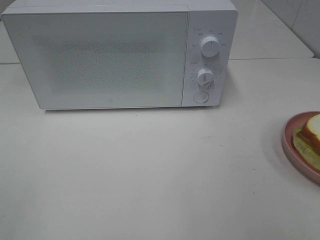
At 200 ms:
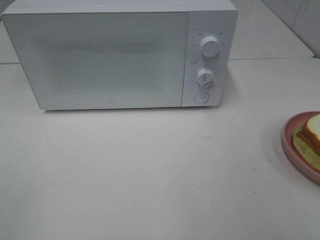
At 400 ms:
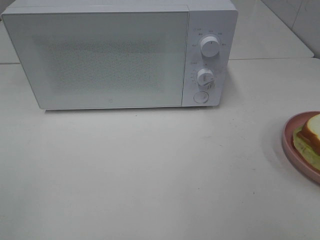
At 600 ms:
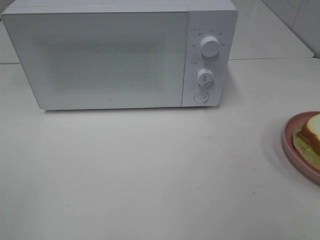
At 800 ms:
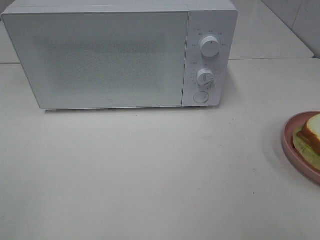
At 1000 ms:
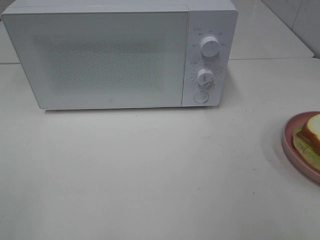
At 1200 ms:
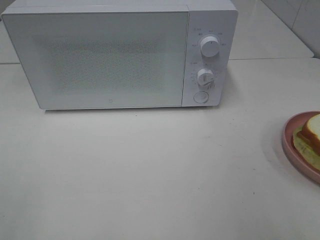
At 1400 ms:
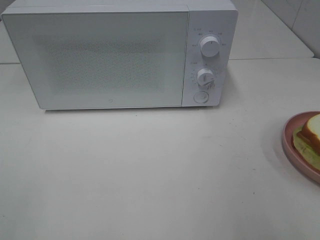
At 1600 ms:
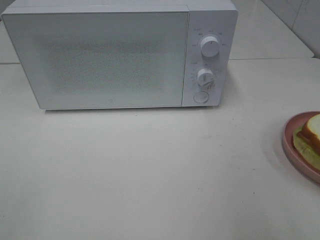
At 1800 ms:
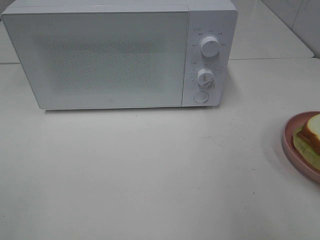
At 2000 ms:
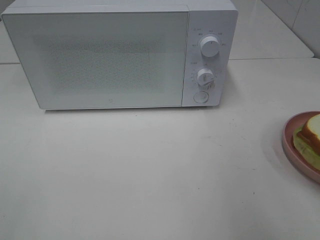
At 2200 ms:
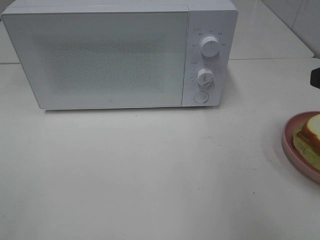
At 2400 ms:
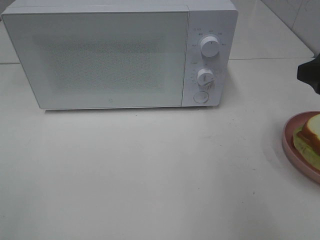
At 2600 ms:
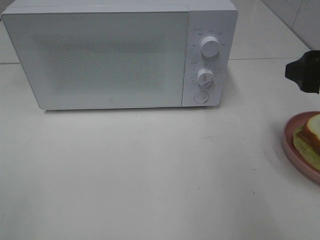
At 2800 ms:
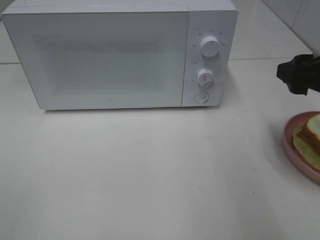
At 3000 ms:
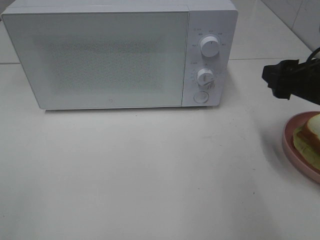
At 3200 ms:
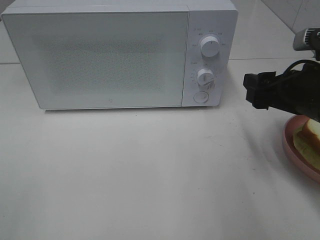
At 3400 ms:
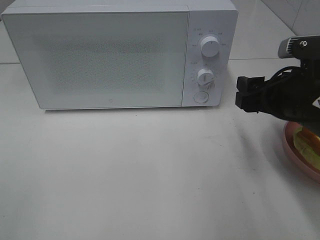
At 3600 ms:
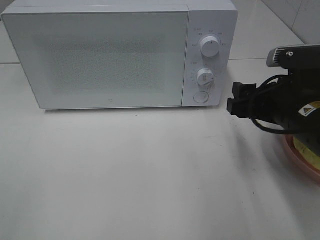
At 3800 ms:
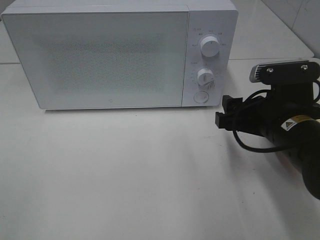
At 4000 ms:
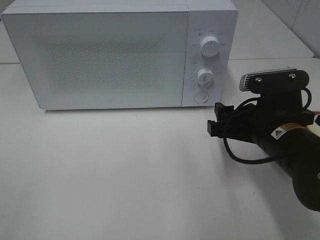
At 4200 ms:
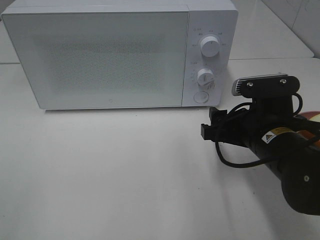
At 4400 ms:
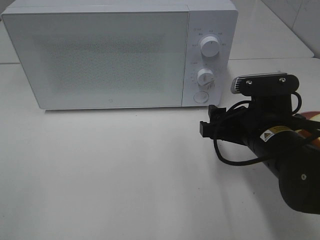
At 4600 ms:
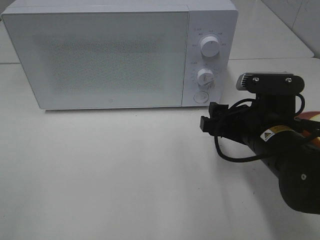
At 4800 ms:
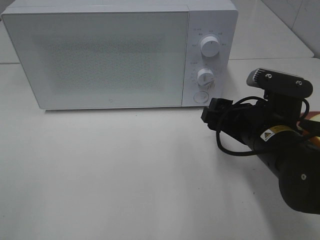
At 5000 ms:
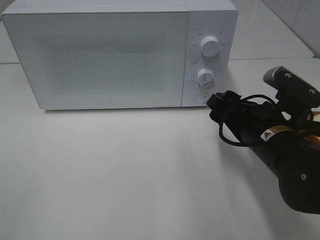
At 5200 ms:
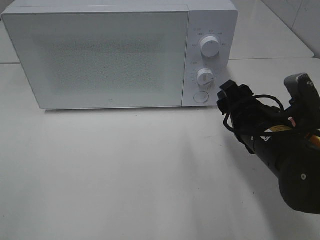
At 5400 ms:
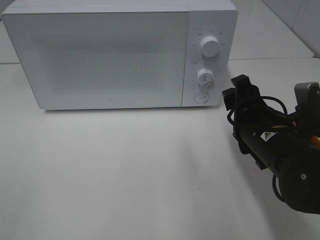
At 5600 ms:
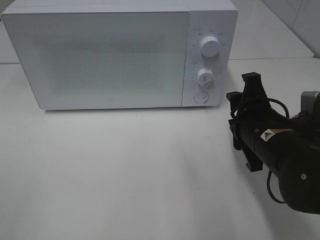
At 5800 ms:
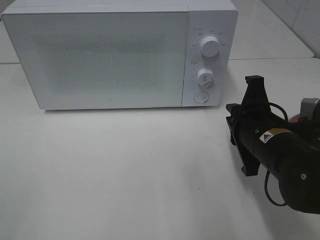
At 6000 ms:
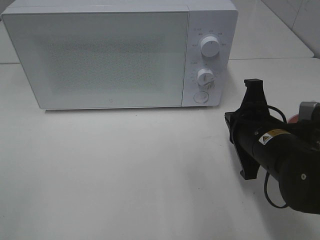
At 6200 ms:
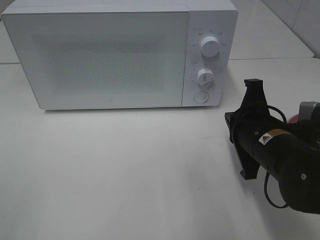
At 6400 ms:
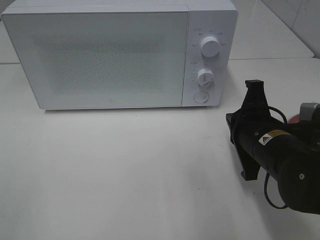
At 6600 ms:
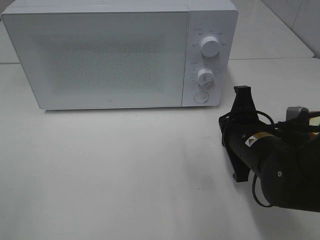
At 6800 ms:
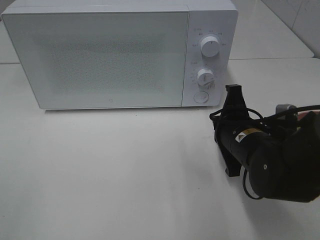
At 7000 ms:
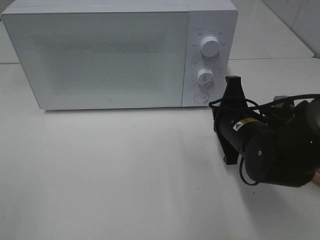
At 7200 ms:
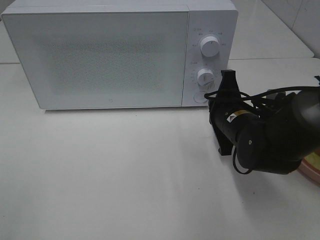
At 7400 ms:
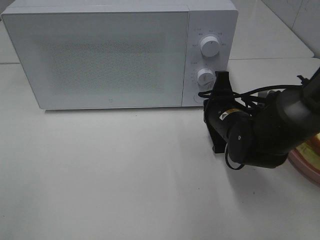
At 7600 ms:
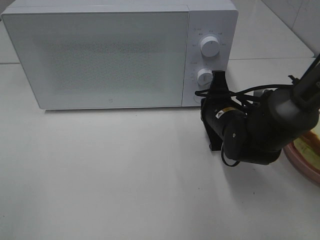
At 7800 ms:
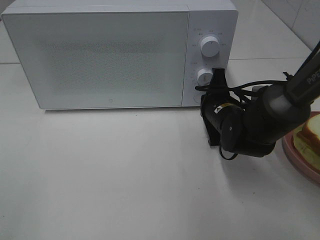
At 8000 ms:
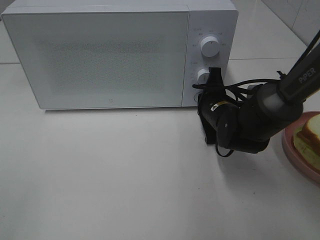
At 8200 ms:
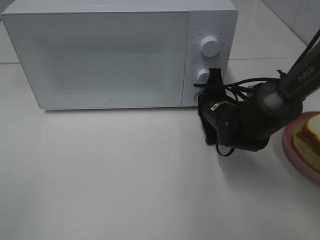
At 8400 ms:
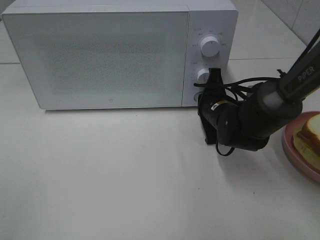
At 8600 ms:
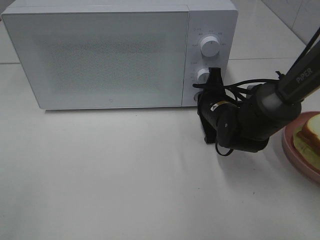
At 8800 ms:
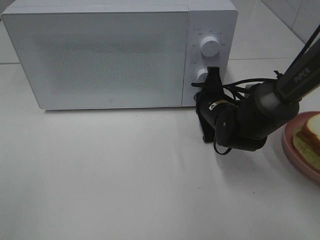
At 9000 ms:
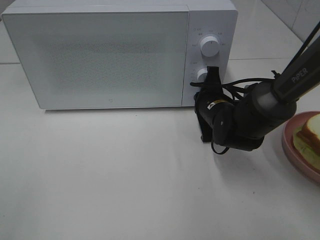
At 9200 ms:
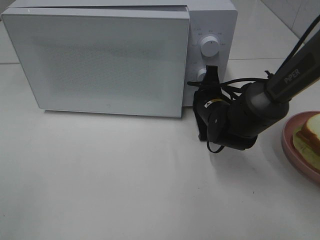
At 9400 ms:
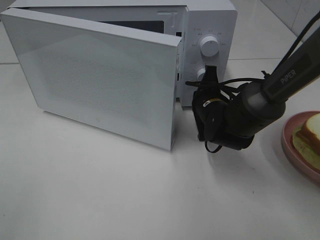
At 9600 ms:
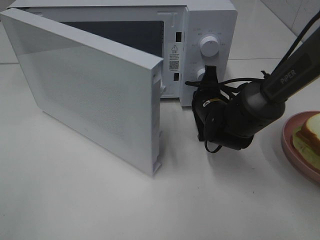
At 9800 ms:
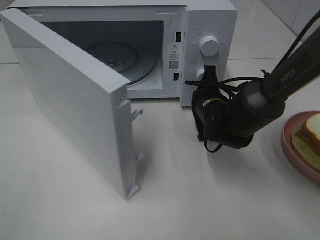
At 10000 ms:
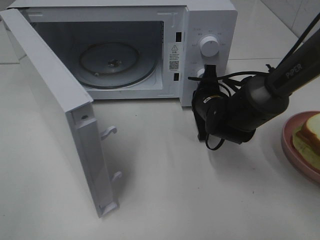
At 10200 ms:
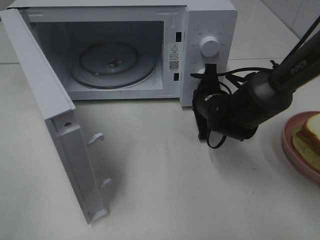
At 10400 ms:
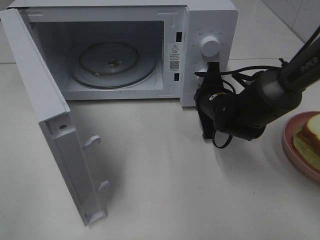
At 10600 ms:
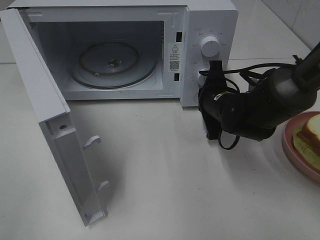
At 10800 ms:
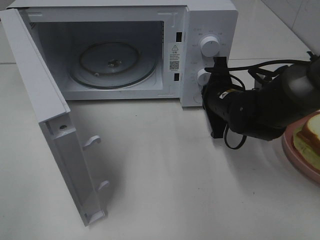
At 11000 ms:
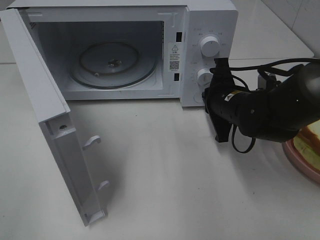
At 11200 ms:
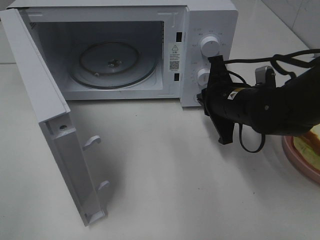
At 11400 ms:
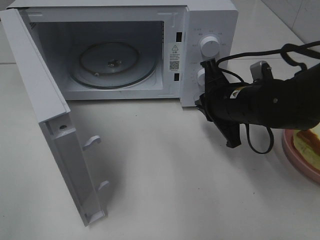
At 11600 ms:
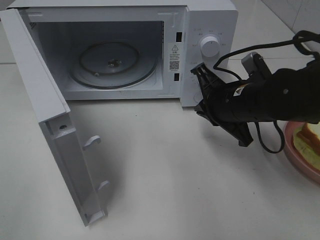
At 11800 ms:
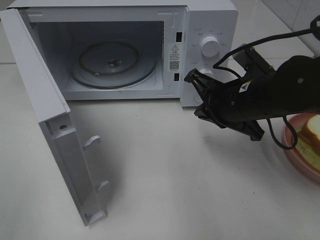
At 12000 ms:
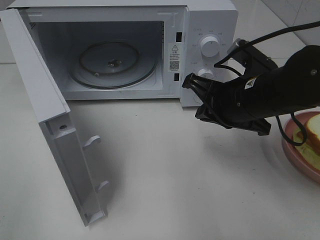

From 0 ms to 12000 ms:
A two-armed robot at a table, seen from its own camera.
Task of the whole recording: Heat Sandwich.
Step, from 0 ms to 11000 ms: Right hand: press the switch.
From 1600 ms to 3000 ms: The right gripper heads forward and downward, covering roughly 15 cm.
From 3000 ms to 4400 ms: The right gripper moves to the left and downward, some 10 cm.
From 4400 ms to 6000 ms: The right gripper closes up.
From 6000 ms to 7600 ms: The right gripper heads forward, covering some 10 cm.
From 7600 ms to 9000 ms: The grippers move only a little.
From 10400 ms to 12000 ms: The right gripper is displaced backward and upward by approximately 15 cm.

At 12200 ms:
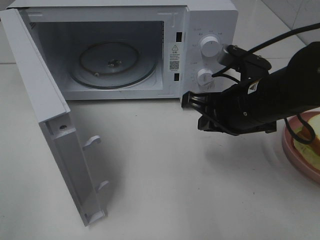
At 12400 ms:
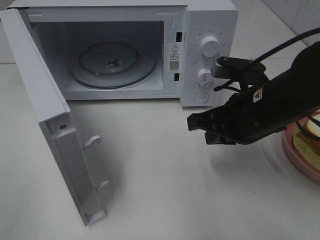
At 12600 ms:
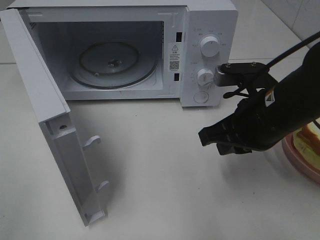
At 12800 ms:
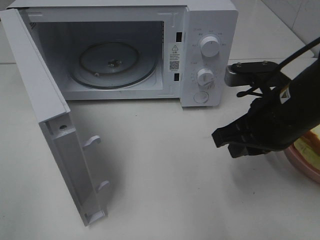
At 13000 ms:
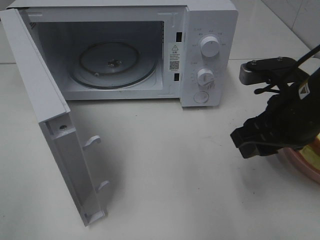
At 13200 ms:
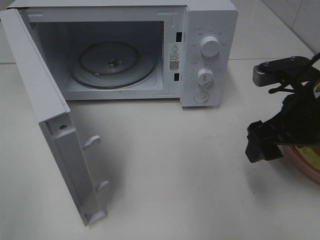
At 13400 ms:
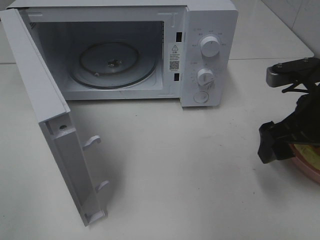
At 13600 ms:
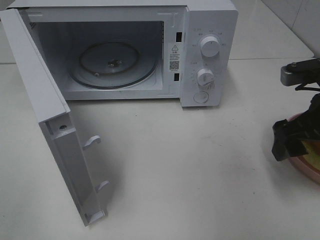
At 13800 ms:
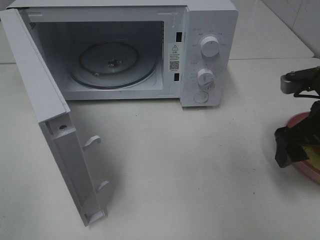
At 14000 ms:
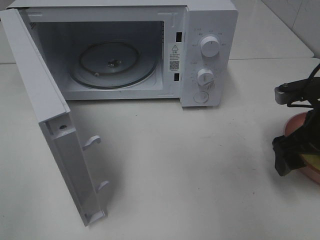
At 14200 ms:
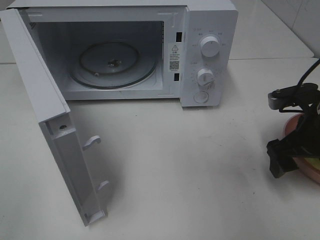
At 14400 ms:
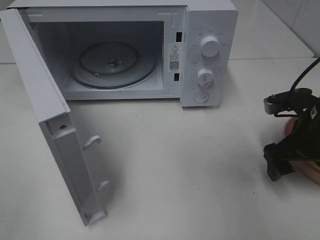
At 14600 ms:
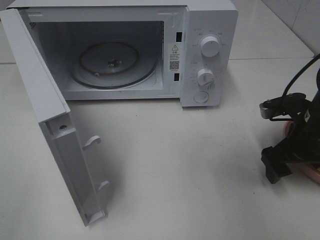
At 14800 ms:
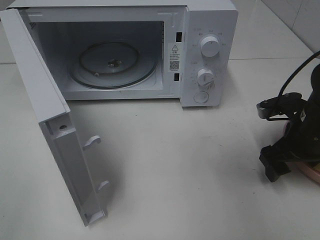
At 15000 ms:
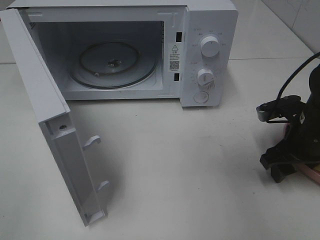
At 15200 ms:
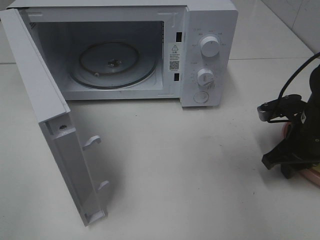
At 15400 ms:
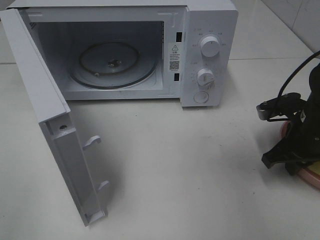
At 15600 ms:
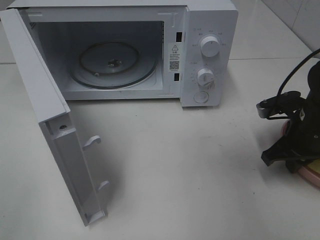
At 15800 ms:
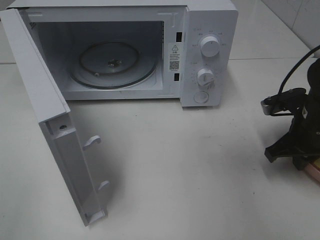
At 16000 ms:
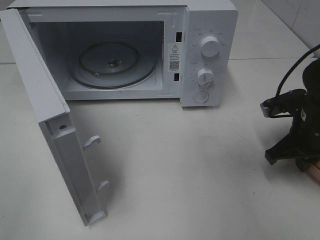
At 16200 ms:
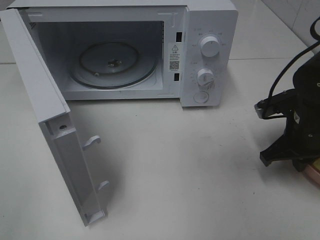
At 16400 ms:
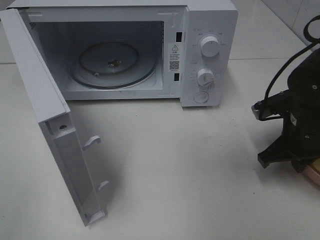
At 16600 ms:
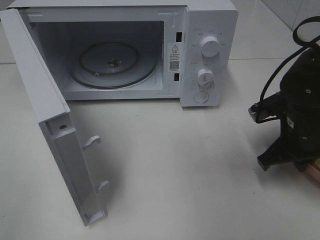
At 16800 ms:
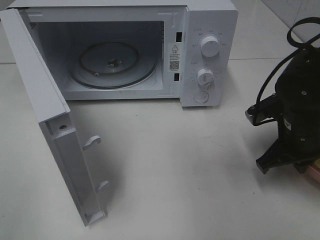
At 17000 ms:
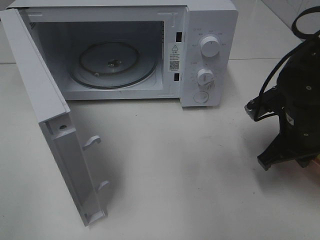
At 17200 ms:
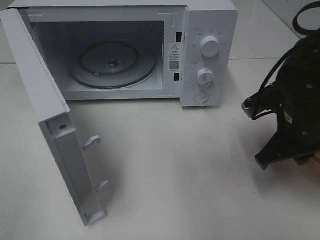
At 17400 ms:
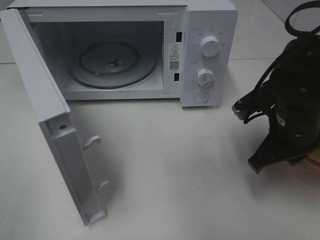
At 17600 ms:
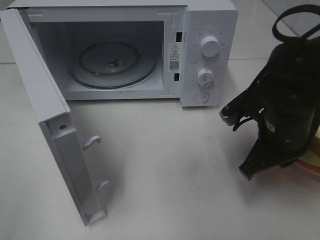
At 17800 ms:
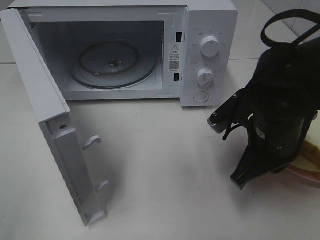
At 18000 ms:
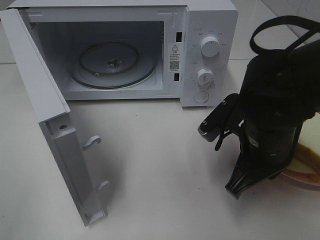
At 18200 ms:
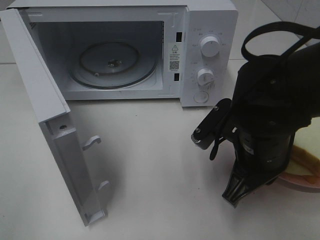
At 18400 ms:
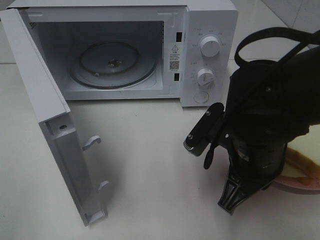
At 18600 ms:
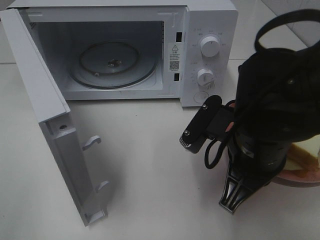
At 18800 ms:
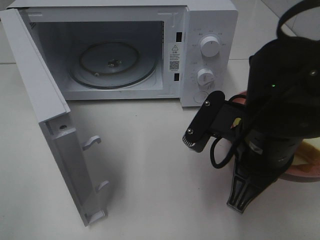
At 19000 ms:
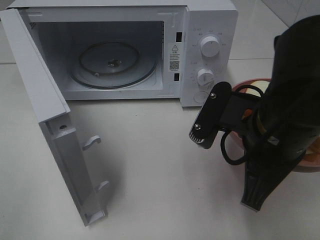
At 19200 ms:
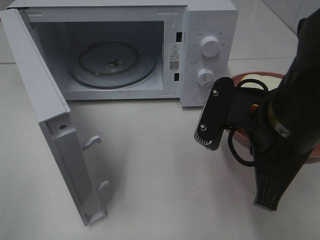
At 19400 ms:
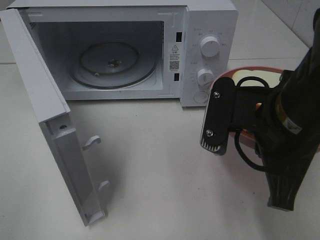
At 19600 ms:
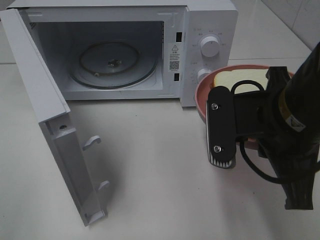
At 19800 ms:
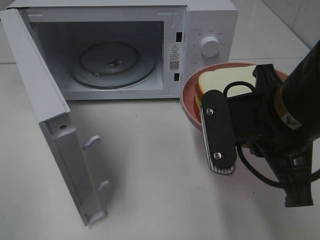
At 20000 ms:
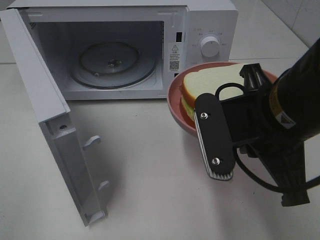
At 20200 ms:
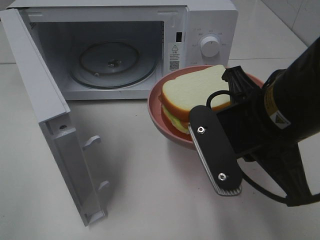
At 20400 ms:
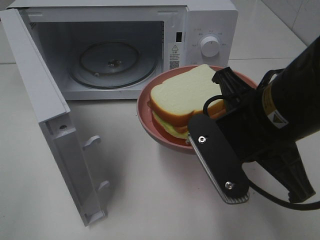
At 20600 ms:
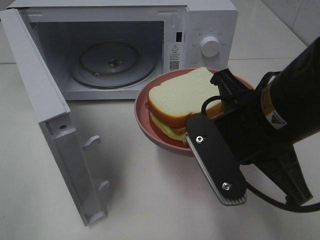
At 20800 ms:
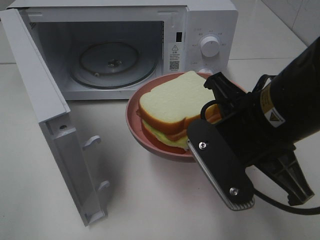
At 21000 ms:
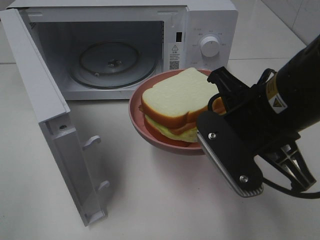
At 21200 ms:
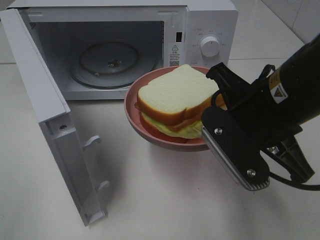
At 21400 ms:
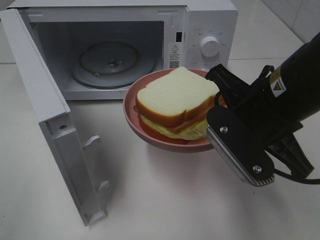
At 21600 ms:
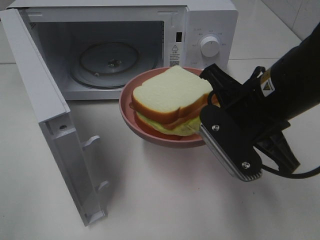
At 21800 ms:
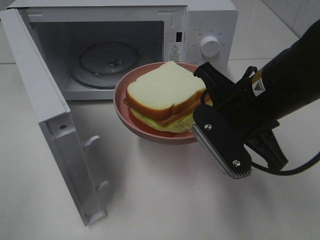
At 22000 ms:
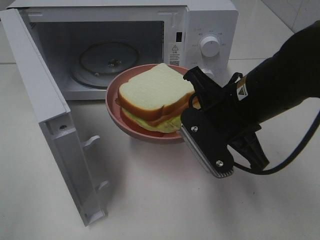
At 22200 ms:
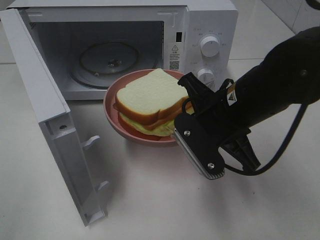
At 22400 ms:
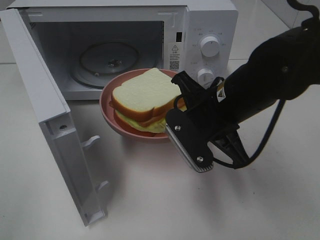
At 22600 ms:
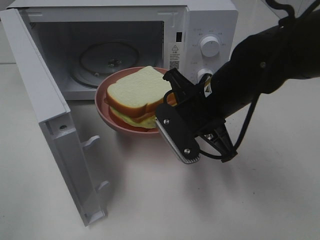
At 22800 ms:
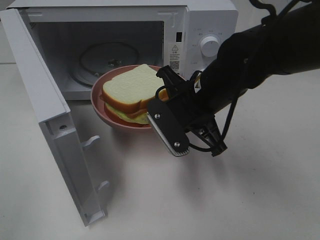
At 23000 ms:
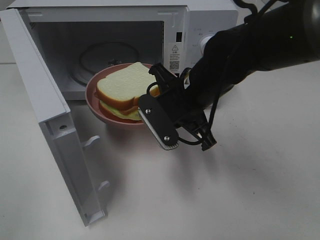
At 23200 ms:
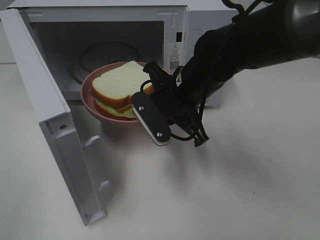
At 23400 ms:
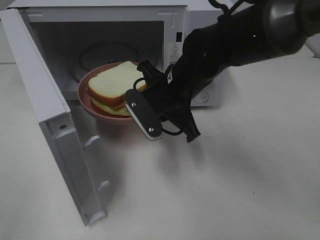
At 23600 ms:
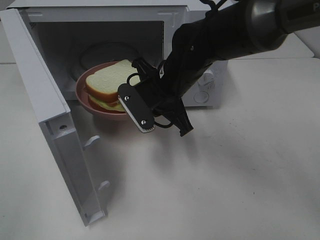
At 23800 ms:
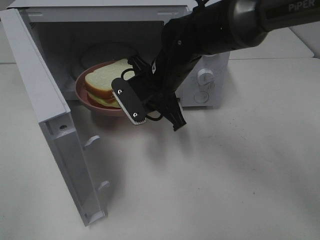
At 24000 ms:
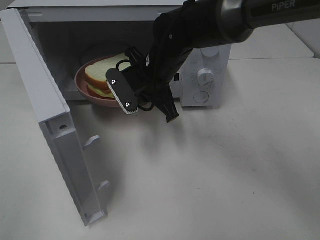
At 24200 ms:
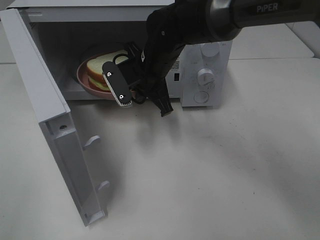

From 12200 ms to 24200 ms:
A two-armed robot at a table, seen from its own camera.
Task of the whole recording: Heat Sandwich.
Step, from 12200 ms to 15800 ms: Right hand: grab the plate with the sandwich.
From 12200 ms to 13800 ms: The right gripper goes roughly 10 cm to the right, and opens.
From 13800 ms to 15200 ms: The right gripper is displaced downward by roughly 5 cm, and closes its fingers.
From 15200 ms to 16600 ms: The right gripper closes up.
From 16600 ms to 18200 ms: The right gripper is displaced to the left and backward by some 10 cm.
From 18200 ms to 19800 ms: The right gripper travels upward by some 10 cm.
From 21200 ms to 22600 ms: The right gripper shifts some 10 cm forward and downward.
From 22600 ms to 24200 ms: The right gripper travels forward and to the left by roughly 15 cm.
